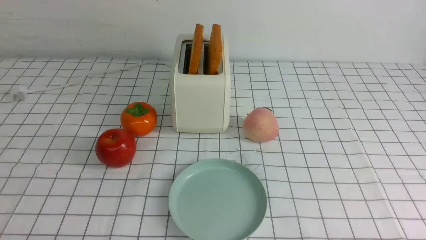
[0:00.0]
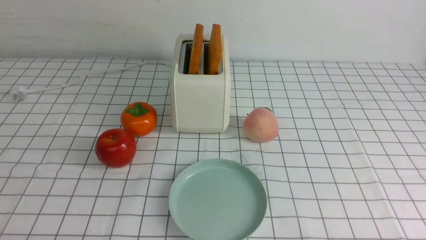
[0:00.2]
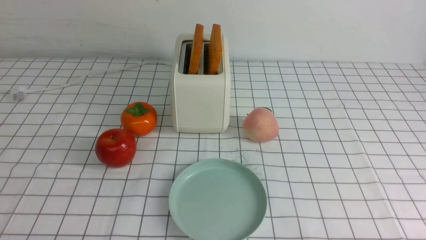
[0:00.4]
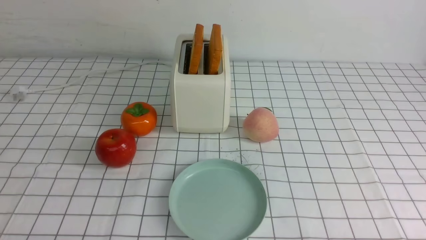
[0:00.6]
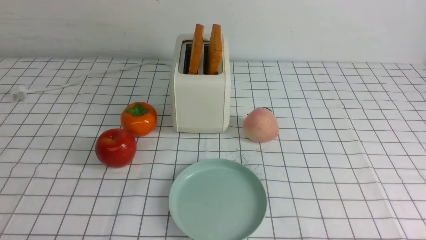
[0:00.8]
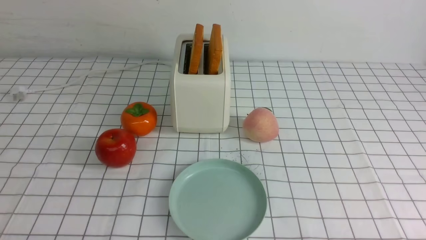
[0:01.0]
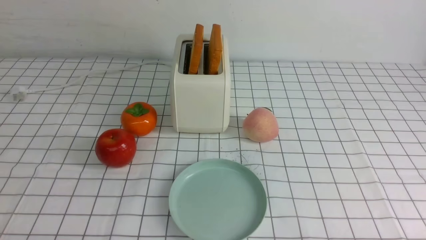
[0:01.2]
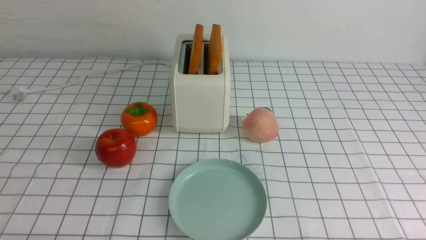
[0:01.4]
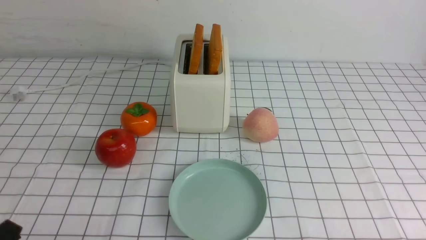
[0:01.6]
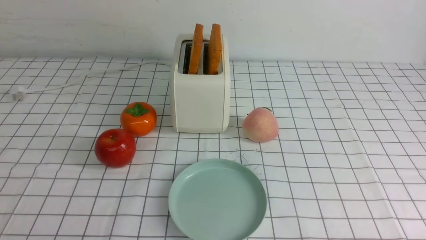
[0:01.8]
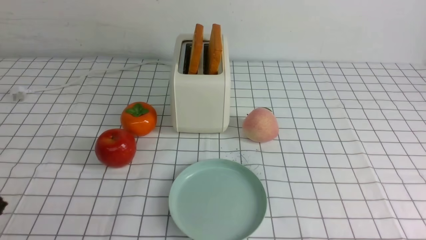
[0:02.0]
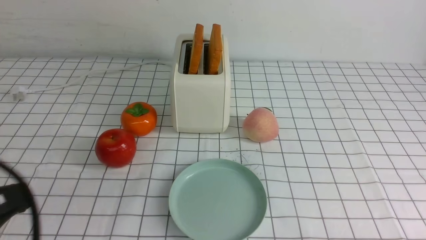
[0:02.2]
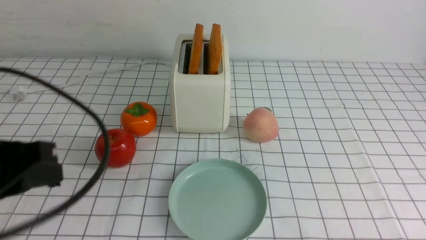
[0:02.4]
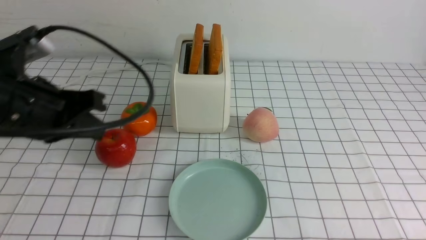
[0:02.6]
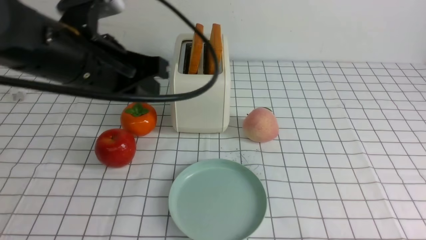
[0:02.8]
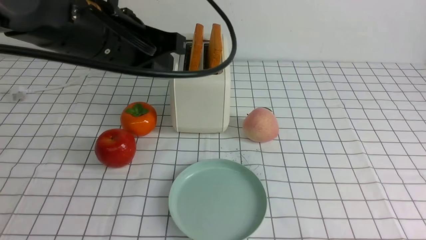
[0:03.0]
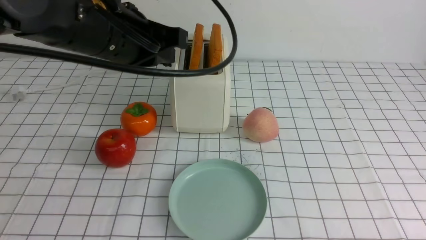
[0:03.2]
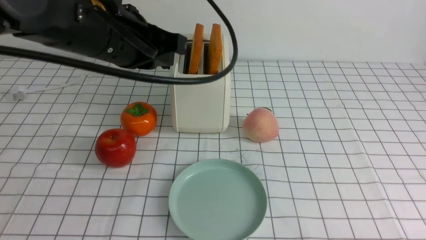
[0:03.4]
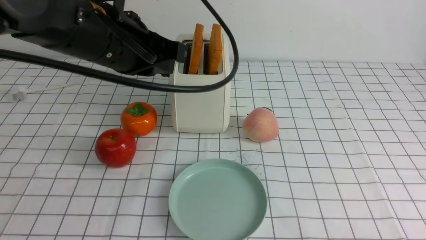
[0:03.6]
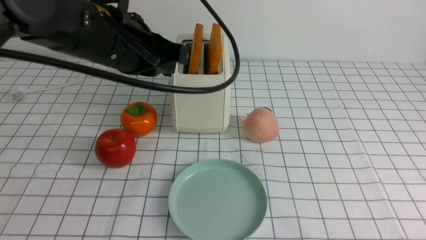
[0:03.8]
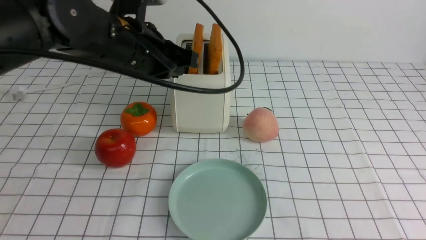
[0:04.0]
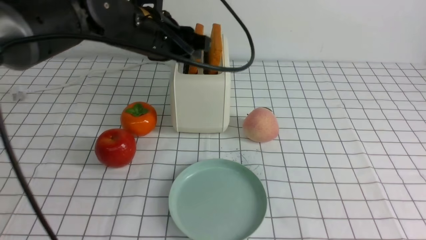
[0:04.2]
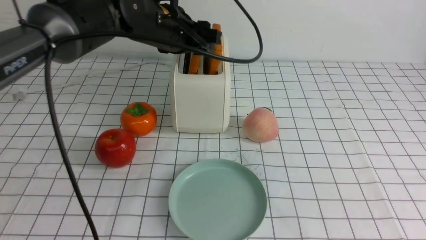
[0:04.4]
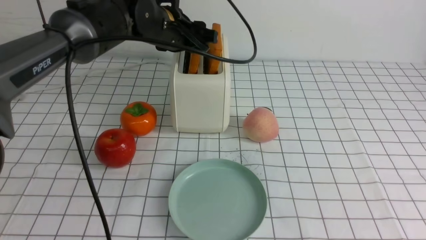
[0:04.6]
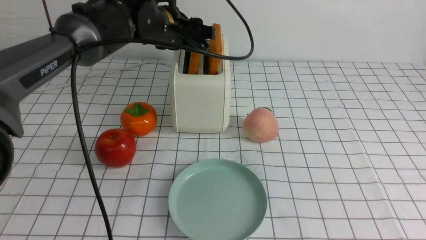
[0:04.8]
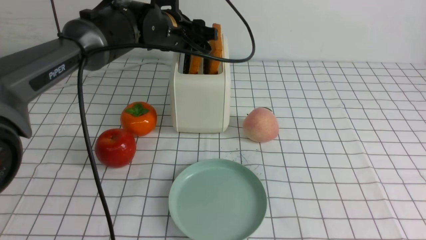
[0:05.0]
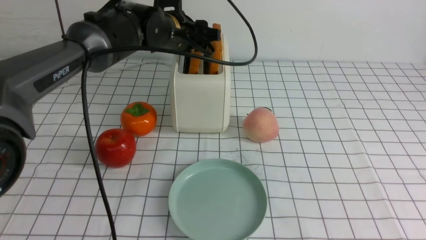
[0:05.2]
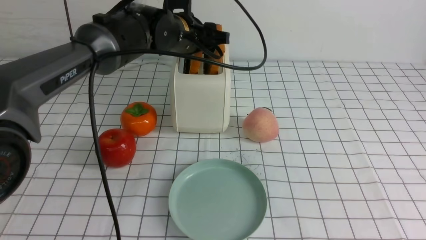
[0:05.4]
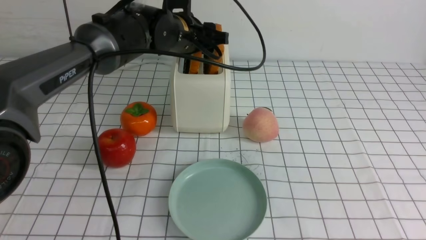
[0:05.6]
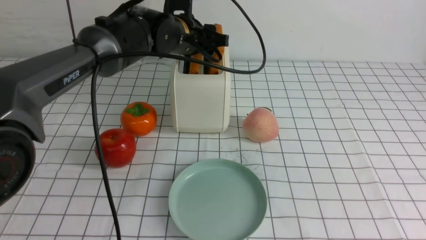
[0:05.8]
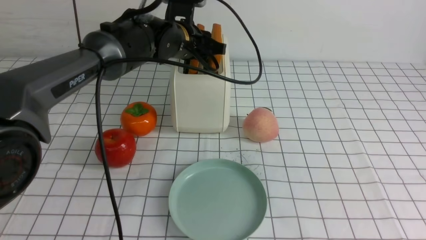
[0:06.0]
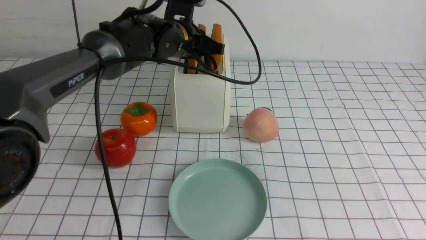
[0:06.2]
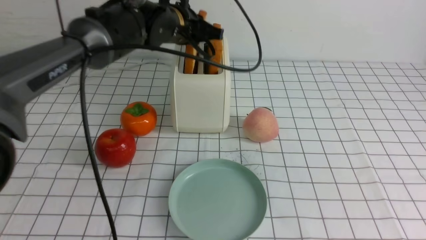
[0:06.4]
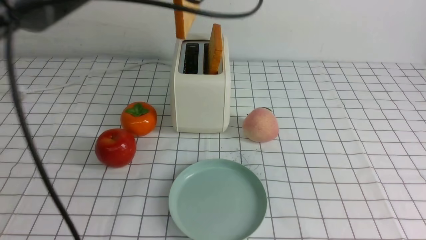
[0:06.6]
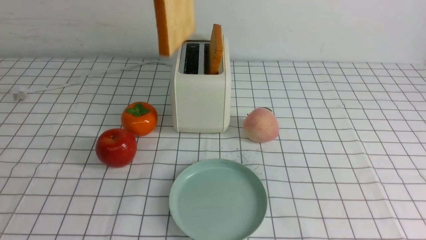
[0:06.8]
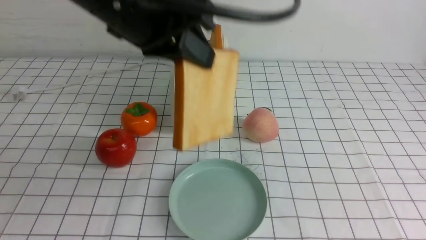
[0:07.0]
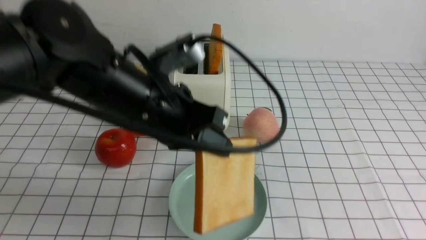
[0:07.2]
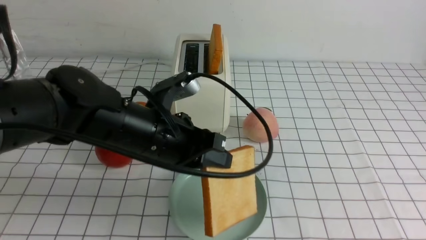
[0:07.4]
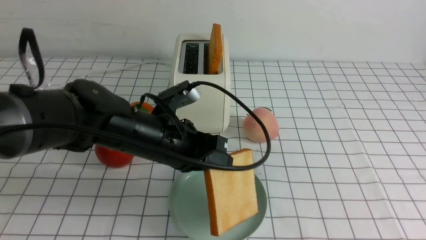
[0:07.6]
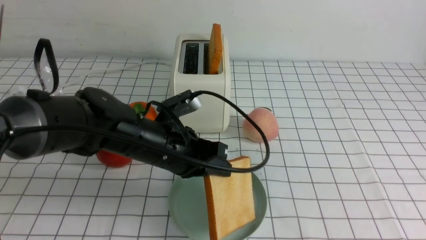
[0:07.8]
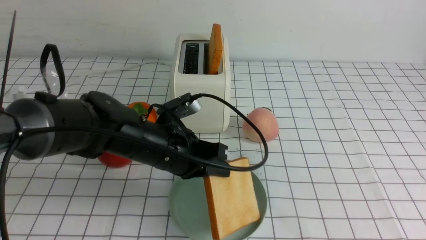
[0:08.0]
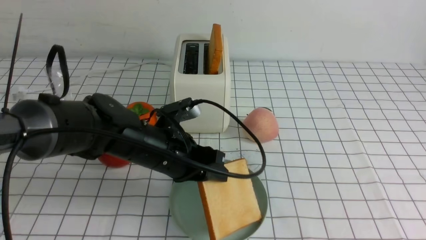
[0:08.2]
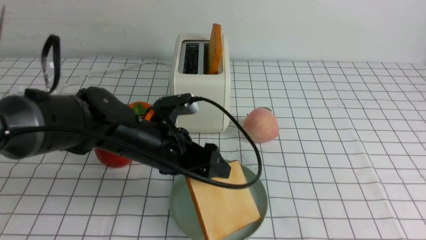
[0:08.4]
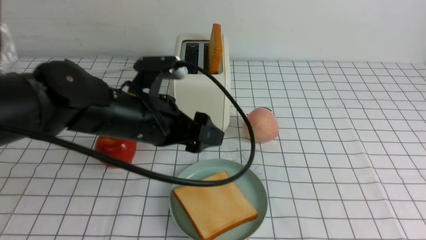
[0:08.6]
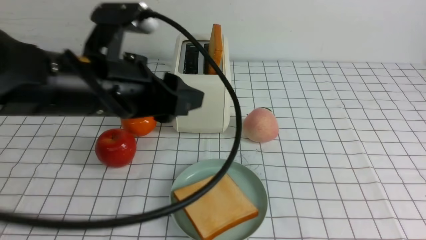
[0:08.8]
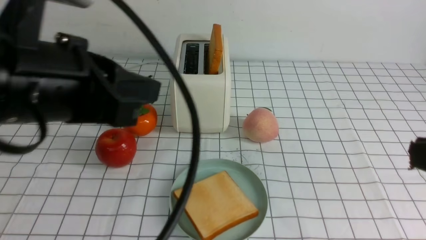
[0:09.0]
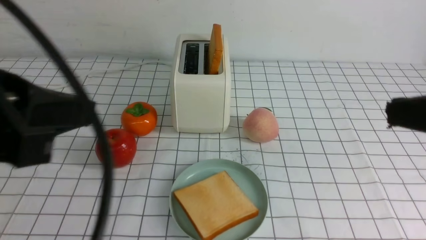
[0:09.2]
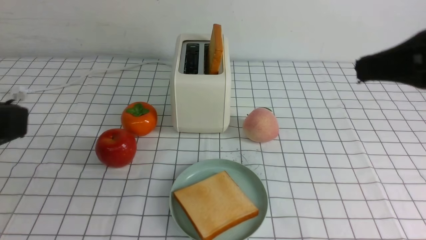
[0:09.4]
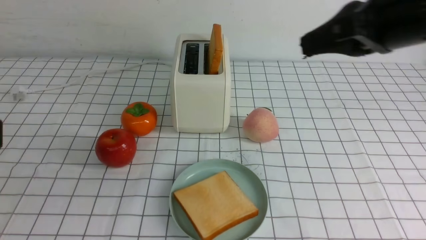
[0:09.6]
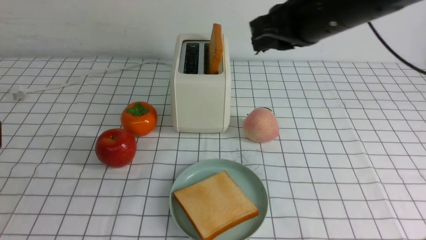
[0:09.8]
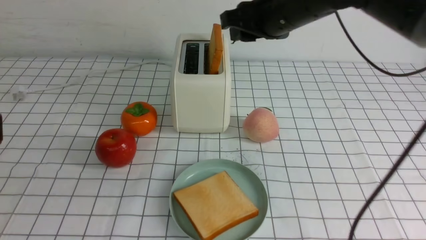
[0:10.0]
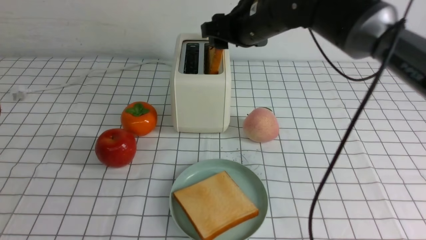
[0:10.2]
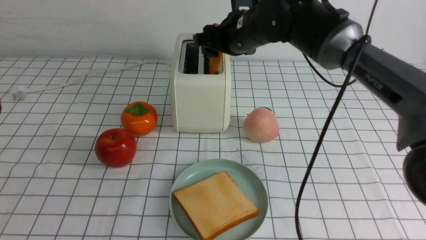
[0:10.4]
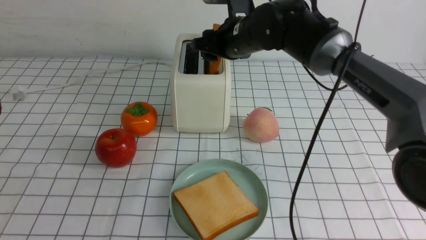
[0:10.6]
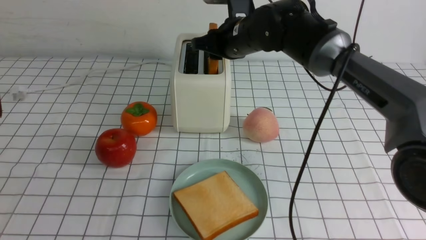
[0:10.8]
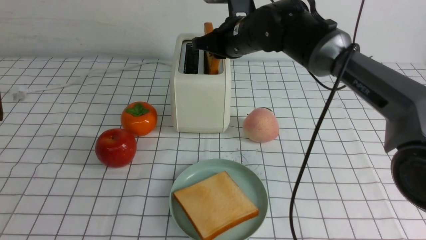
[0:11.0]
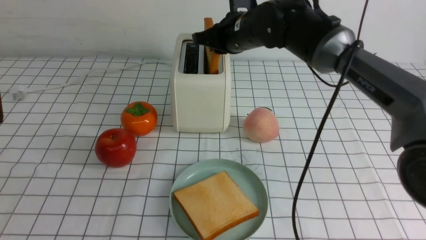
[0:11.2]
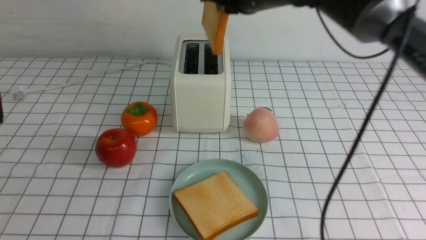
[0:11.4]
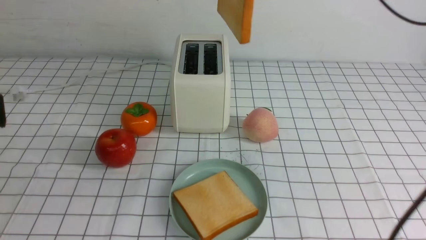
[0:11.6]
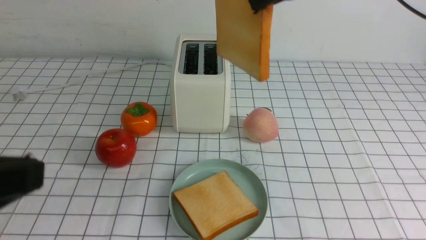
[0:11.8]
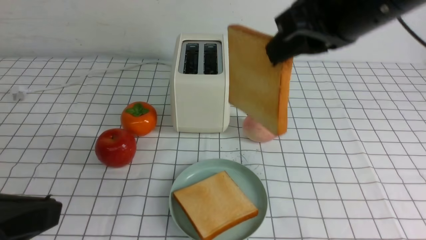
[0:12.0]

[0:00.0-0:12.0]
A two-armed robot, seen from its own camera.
Task of the whole recording: take toasted bread from bread machine on white checkered table place on plate.
Step, 0:00.0 to 0:06.4: use the left arm to take out a slice of bread.
Step, 0:06.6 to 0:08.6: use the left arm to put a slice of bread into the empty plate.
Step, 0:09.0 to 0:11.4: use the right arm to take out a slice of bread.
0:01.6 to 0:03.0: The left gripper heads forward, upward and to the right, covering roughly 35 cm, and closes its fingers.
0:03.0 to 0:04.4: The right gripper goes some 15 cm upward, and closes its fingers. Meanwhile the left gripper moves forward, about 15 cm, and opens.
0:04.4 to 0:06.0: The left gripper ends up roughly 5 cm from where it was, and closes its fingers.
0:06.0 to 0:07.6: The left gripper goes approximately 20 cm backward, and goes upward and returns, some 15 cm each way.
0:07.6 to 0:09.0: The left gripper heads upward, backward and to the left, covering some 20 cm, and opens, then closes again. Meanwhile the right gripper goes approximately 5 cm forward.
0:09.0 to 0:10.4: The left gripper moves backward and to the left, roughly 15 cm. Meanwhile the right gripper is displaced forward and to the left by roughly 40 cm, and opens.
0:10.4 to 0:12.0: The right gripper heads backward and upward, covering some 20 cm, and closes up, while the left gripper travels downward by approximately 5 cm.

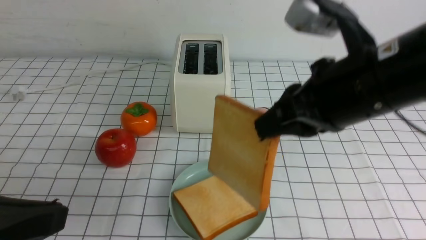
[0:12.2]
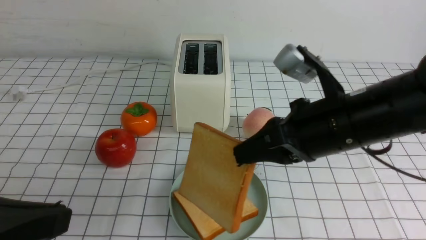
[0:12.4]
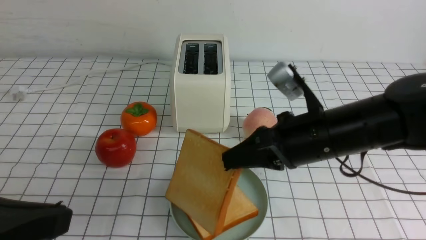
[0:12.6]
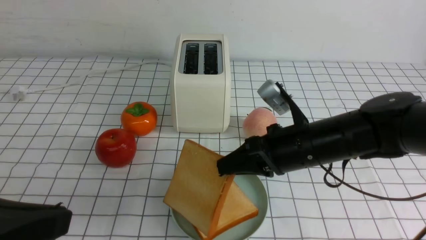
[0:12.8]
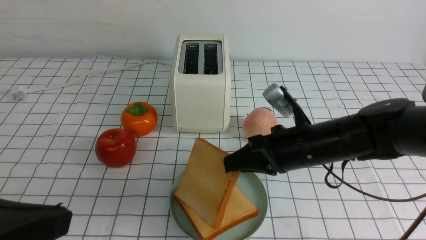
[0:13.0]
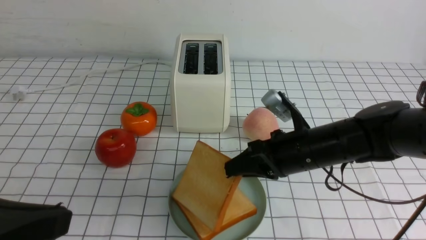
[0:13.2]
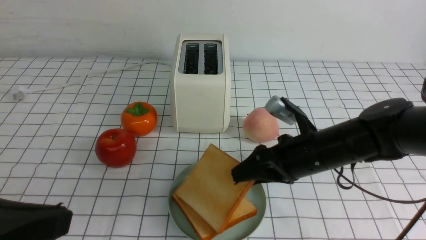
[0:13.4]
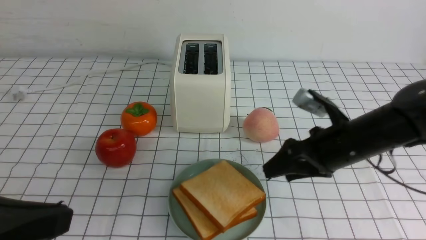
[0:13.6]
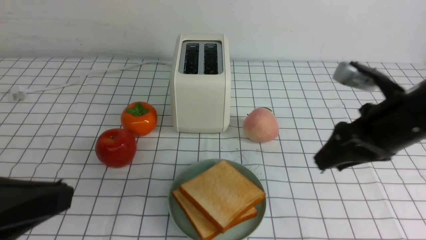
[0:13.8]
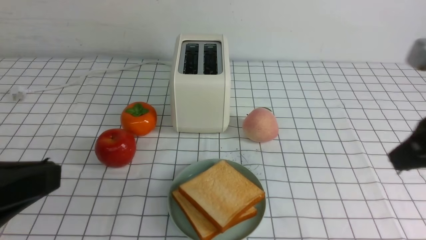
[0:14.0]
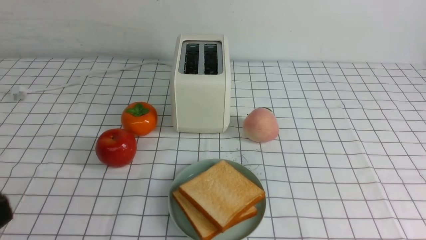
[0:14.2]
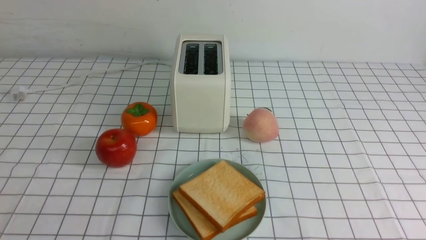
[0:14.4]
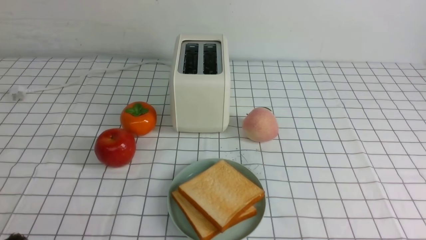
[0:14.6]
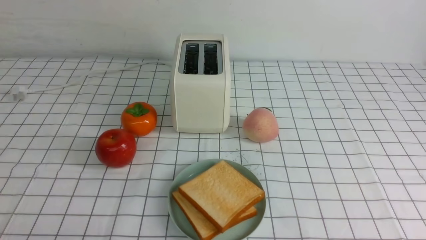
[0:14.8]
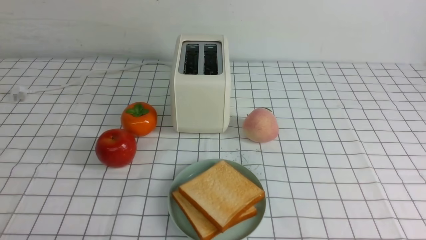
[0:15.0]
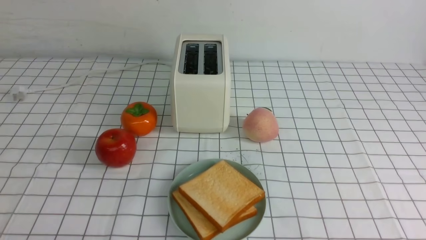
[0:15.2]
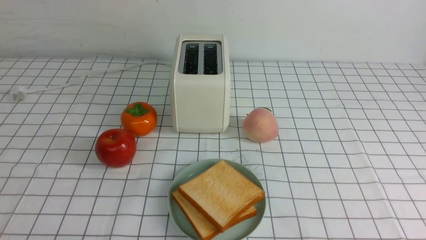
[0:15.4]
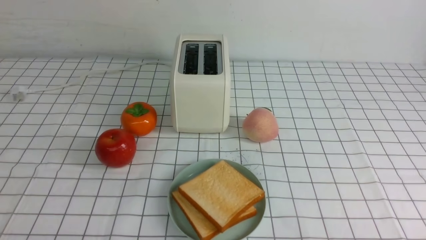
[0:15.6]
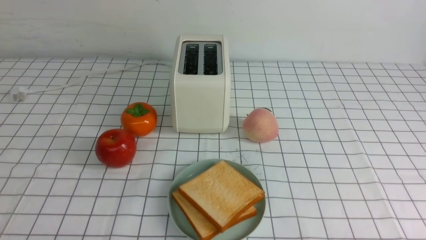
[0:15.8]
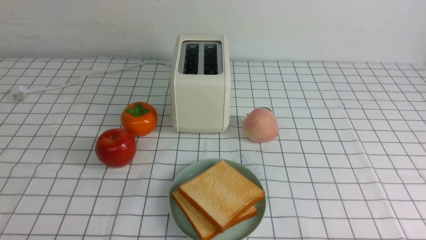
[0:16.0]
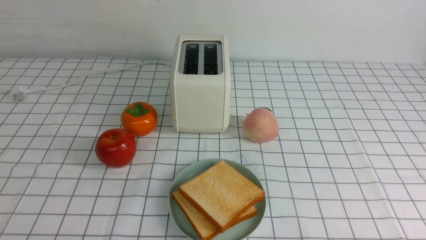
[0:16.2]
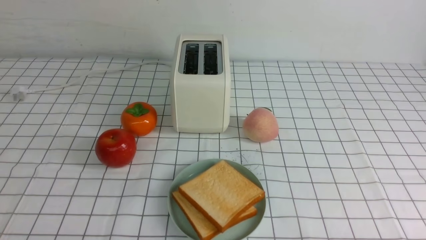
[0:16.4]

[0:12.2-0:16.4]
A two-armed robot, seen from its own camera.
Task of the whole recording: take toasted bread from bread machine on white checkered table place on plate.
Step, 0:12.2 to 0:13.8: use the right arm to put a slice of bread into the plate.
0:12.2 to 0:13.6: The right gripper goes about 15 cm downward, forward and to the right, and opens its fingers.
0:13.6 to 0:15.0: The right gripper goes about 30 cm backward and to the right, and closes its fingers. Meanwhile the left gripper travels downward by about 15 cm.
